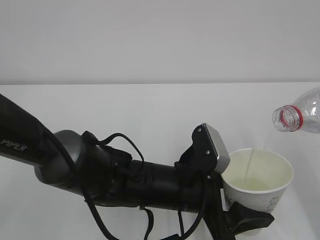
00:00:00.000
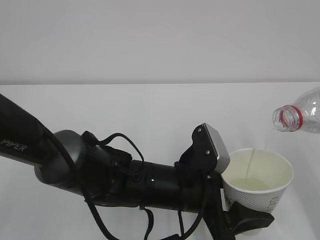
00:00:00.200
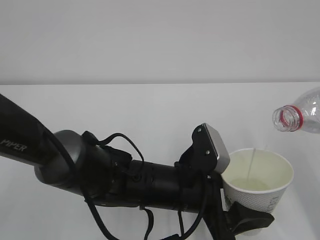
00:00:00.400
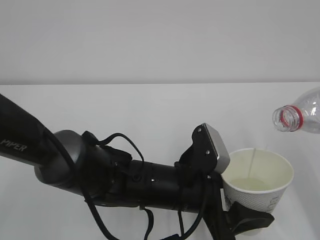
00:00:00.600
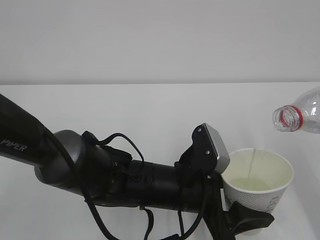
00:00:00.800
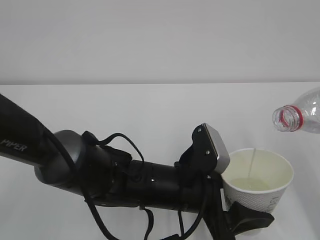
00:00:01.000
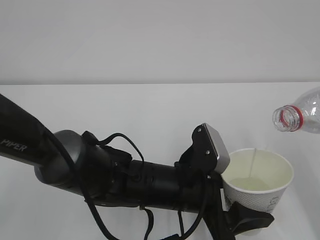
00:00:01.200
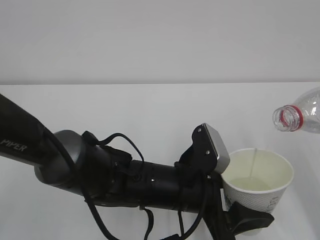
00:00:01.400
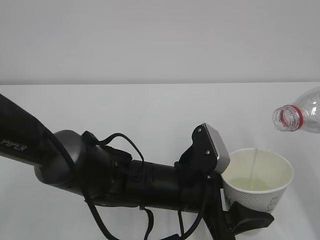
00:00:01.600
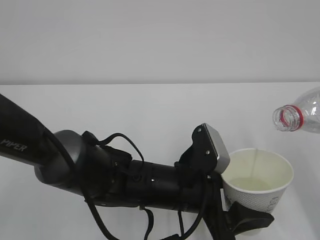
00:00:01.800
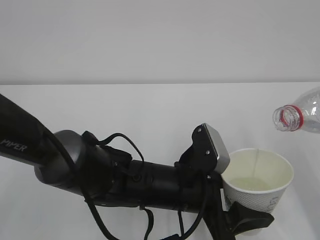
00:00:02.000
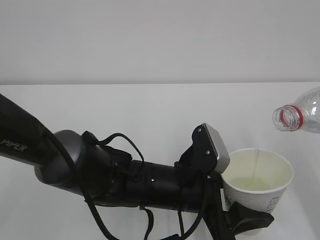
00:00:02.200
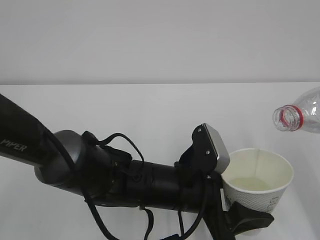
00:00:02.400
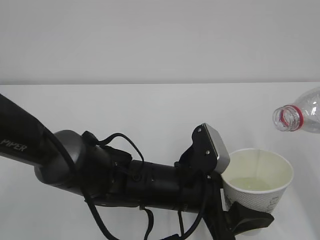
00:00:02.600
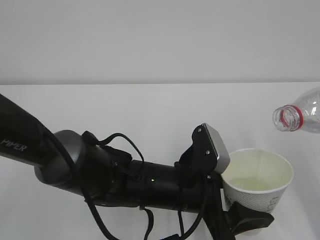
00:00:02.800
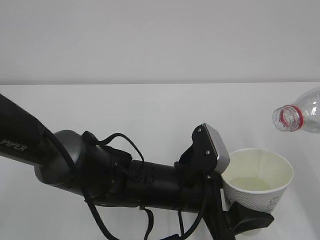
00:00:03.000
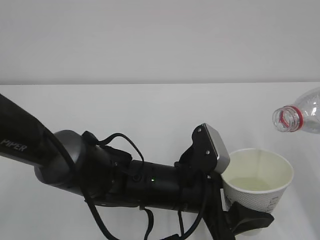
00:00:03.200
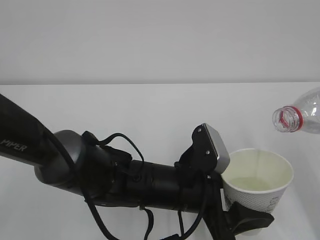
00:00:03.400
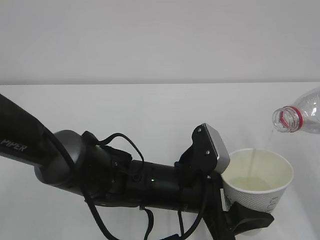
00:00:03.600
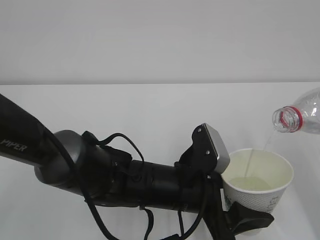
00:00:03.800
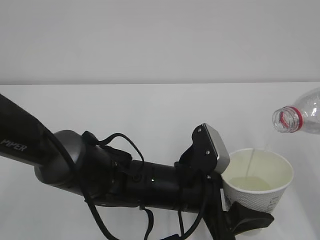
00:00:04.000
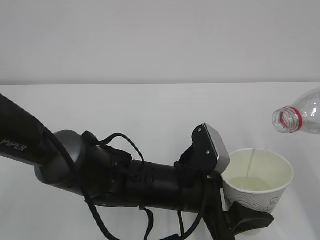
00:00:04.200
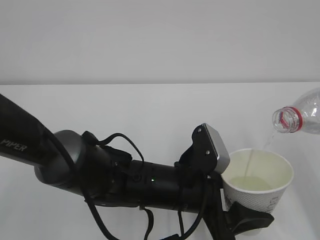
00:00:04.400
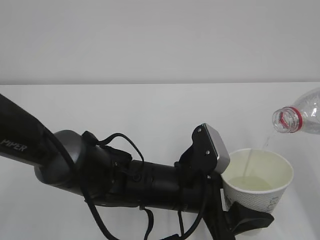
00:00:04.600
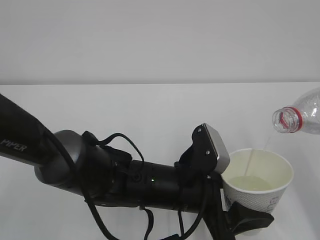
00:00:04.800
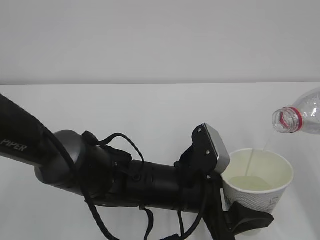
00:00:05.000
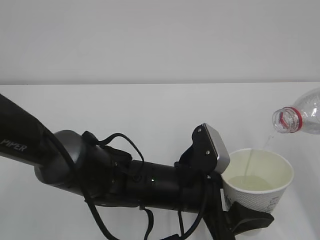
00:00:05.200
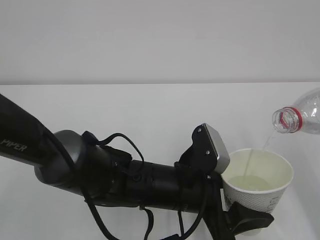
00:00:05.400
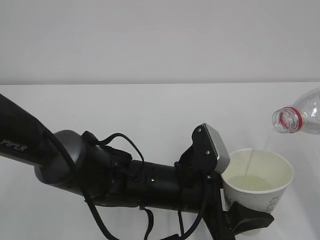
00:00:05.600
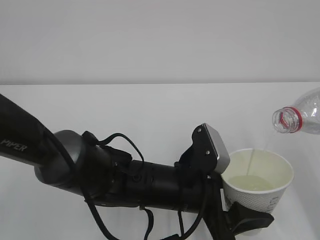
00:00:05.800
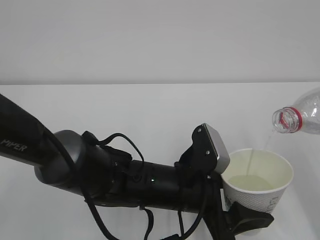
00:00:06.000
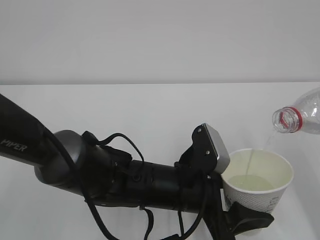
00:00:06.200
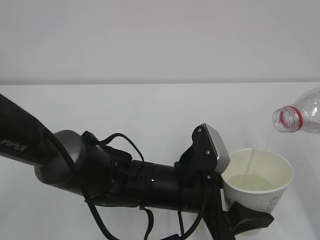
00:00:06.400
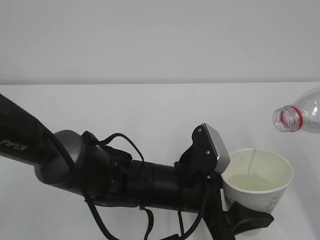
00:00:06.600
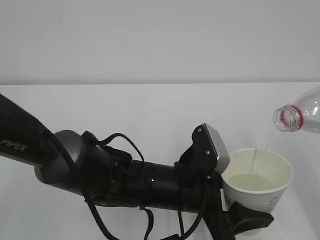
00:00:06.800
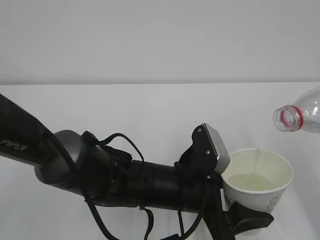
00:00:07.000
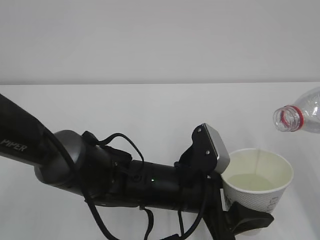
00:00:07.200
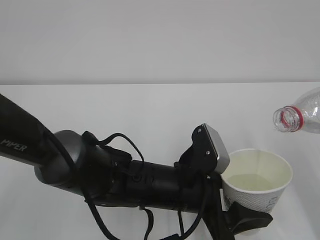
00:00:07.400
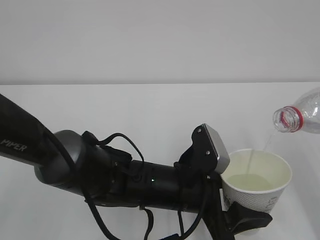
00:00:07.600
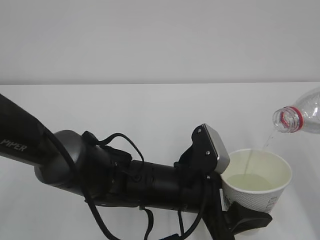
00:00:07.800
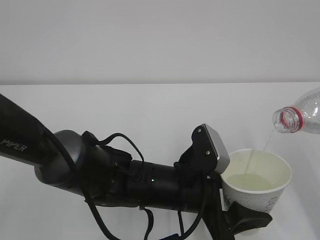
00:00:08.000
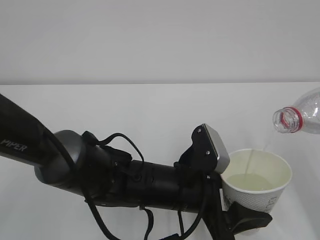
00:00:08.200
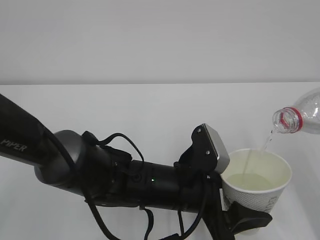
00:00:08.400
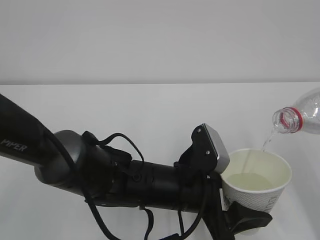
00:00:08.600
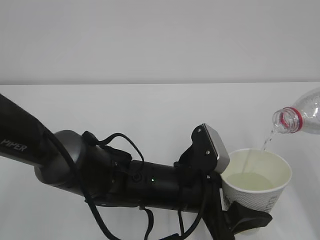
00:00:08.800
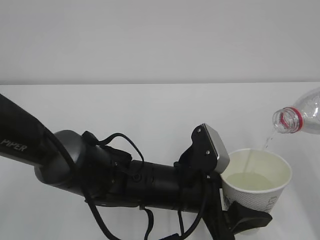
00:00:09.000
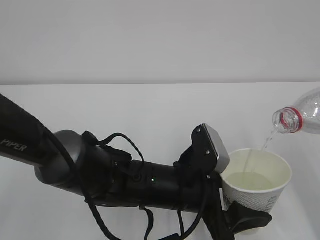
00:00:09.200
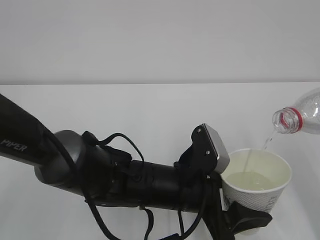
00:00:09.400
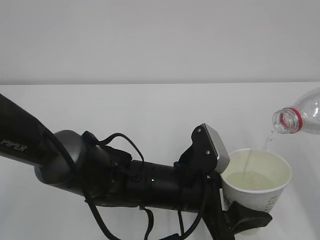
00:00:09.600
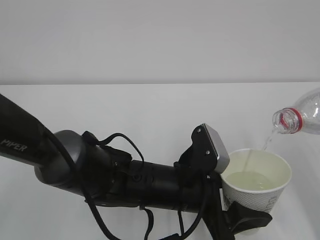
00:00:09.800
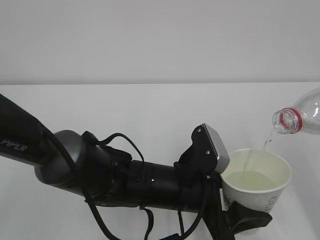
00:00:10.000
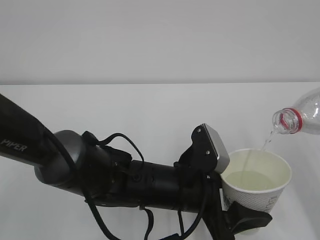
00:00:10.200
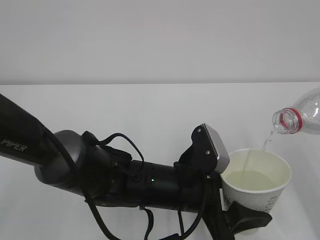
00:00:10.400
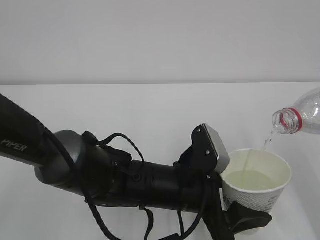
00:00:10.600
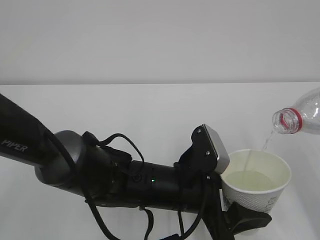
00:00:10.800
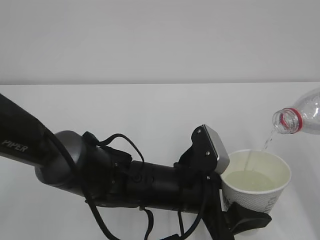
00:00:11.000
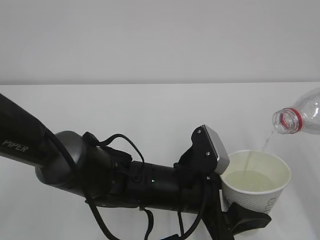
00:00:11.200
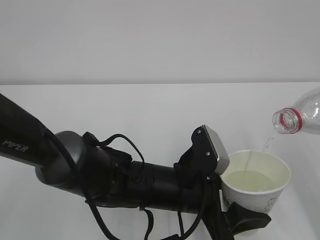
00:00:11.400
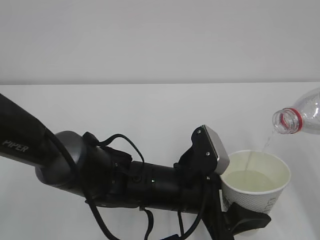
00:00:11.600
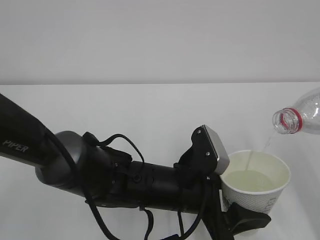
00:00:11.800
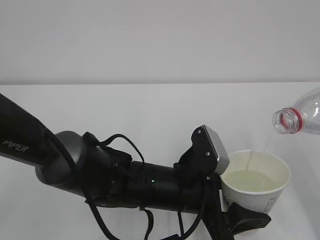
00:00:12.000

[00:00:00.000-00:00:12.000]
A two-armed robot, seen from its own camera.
00:00:00.000 to 00:00:12.000: Both grippers stay about where they are.

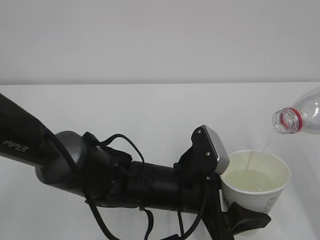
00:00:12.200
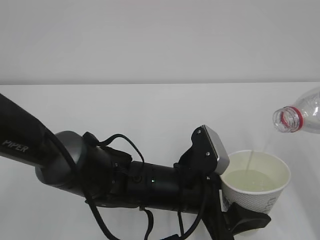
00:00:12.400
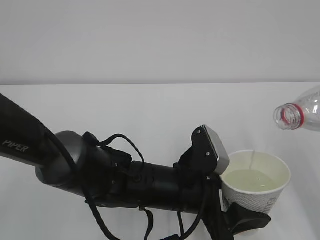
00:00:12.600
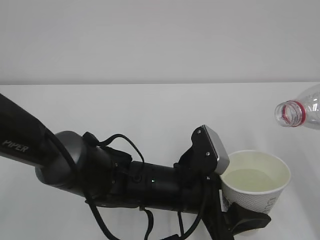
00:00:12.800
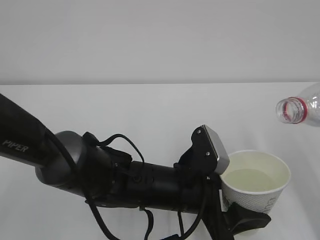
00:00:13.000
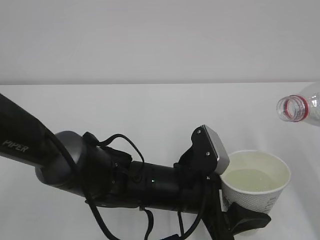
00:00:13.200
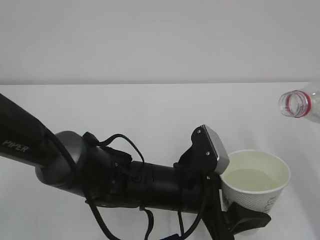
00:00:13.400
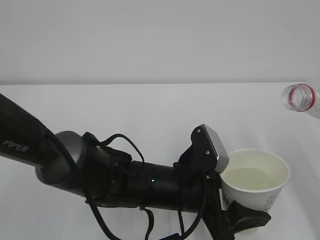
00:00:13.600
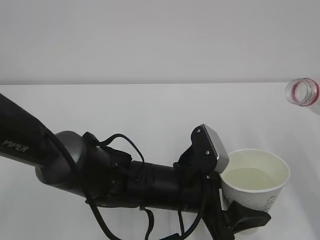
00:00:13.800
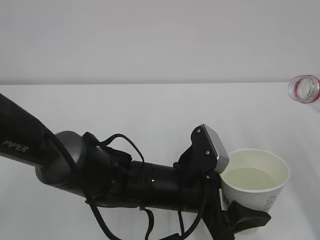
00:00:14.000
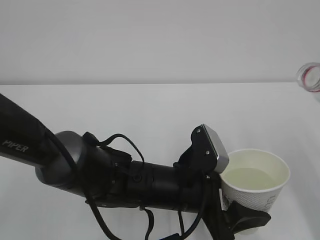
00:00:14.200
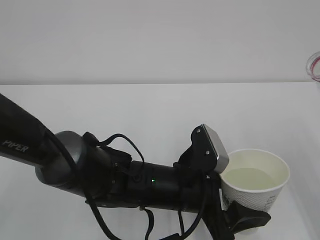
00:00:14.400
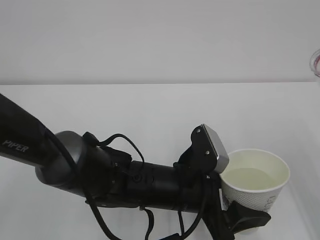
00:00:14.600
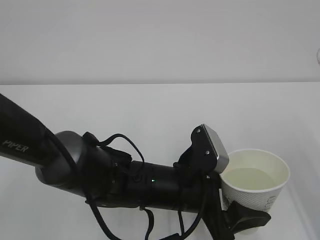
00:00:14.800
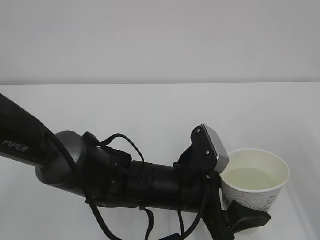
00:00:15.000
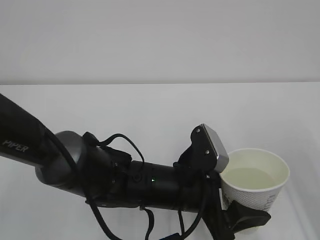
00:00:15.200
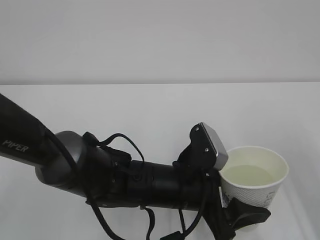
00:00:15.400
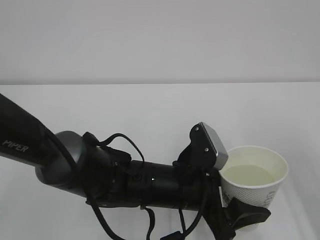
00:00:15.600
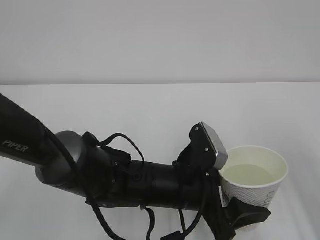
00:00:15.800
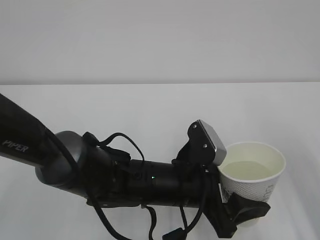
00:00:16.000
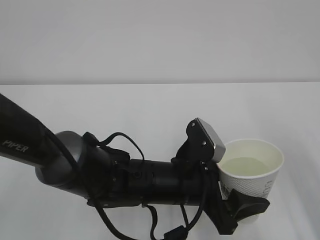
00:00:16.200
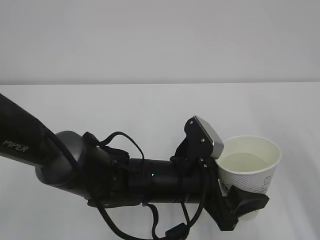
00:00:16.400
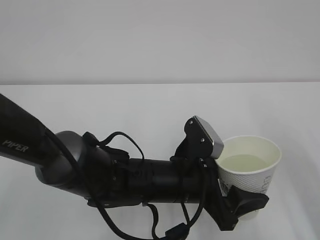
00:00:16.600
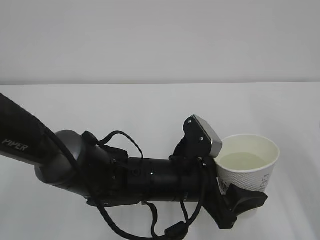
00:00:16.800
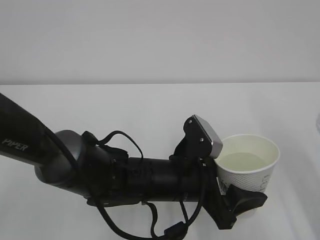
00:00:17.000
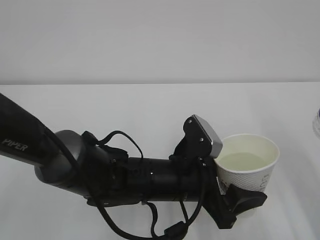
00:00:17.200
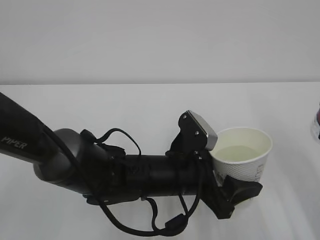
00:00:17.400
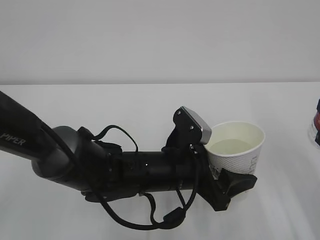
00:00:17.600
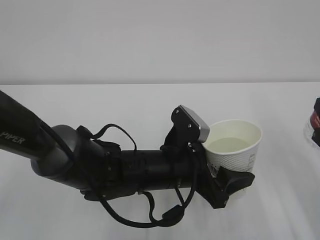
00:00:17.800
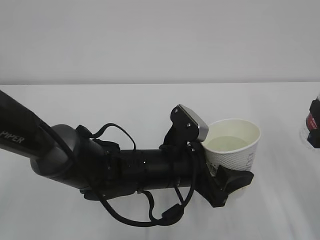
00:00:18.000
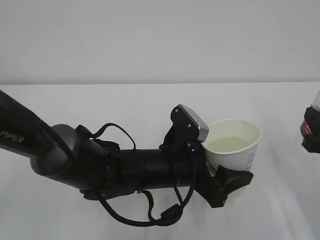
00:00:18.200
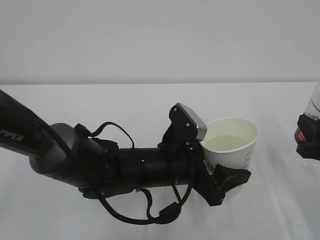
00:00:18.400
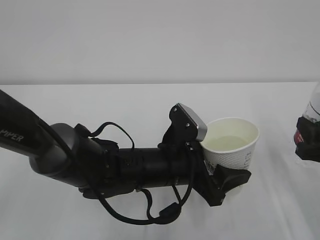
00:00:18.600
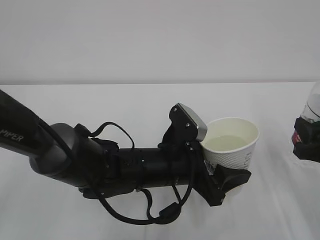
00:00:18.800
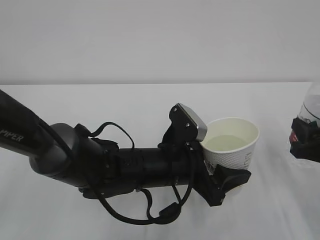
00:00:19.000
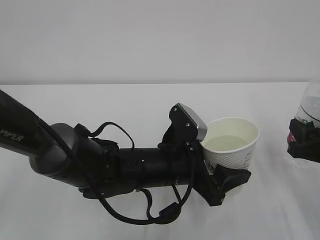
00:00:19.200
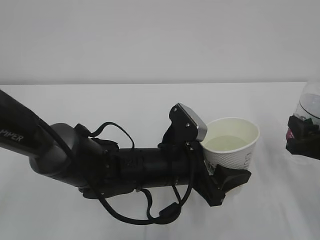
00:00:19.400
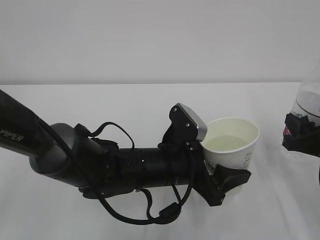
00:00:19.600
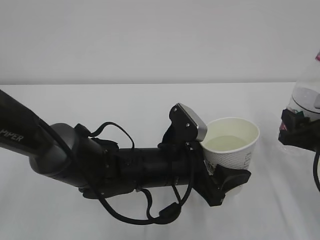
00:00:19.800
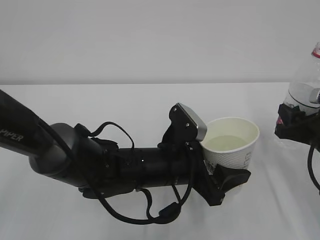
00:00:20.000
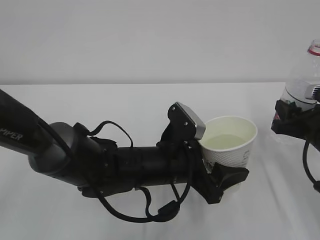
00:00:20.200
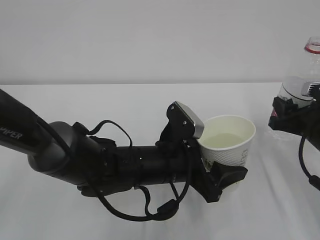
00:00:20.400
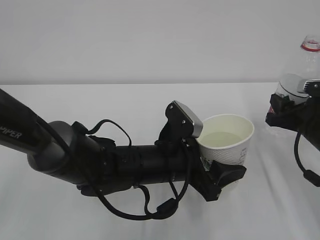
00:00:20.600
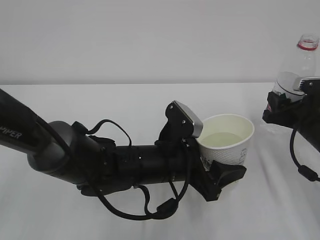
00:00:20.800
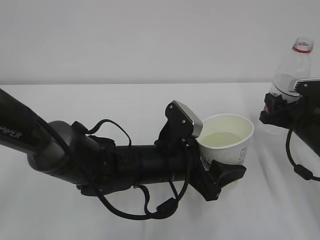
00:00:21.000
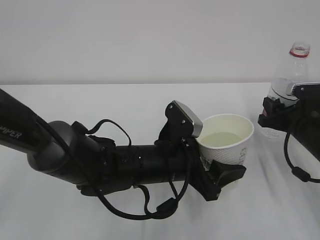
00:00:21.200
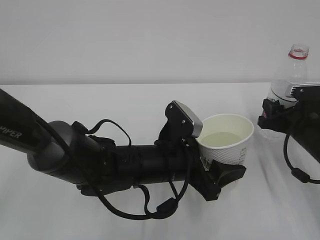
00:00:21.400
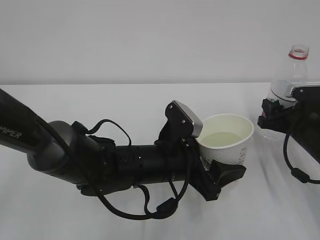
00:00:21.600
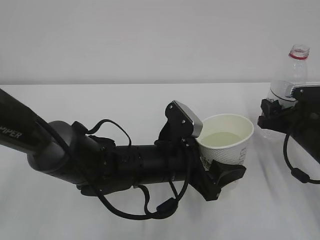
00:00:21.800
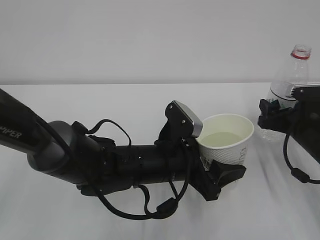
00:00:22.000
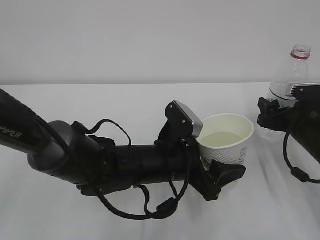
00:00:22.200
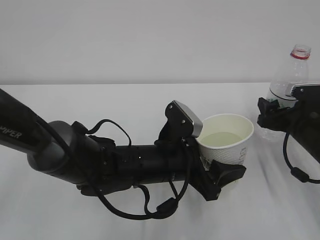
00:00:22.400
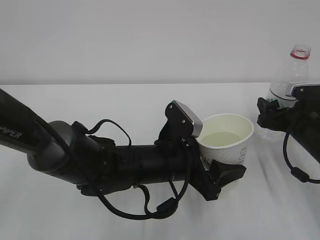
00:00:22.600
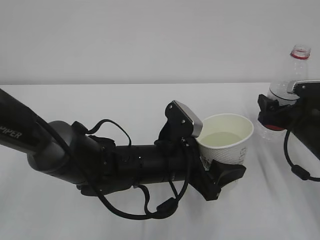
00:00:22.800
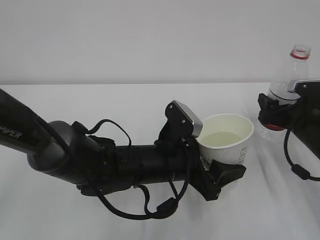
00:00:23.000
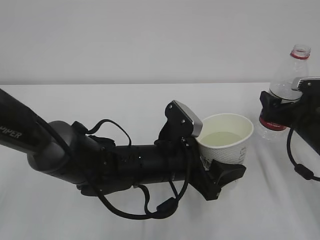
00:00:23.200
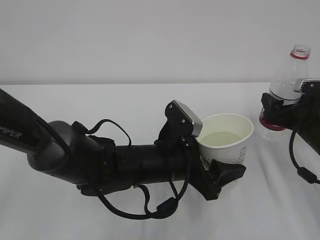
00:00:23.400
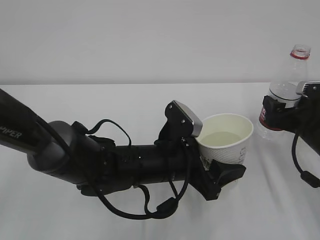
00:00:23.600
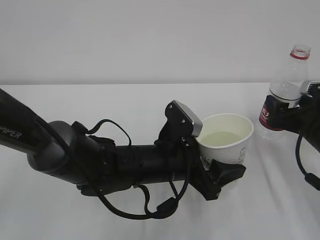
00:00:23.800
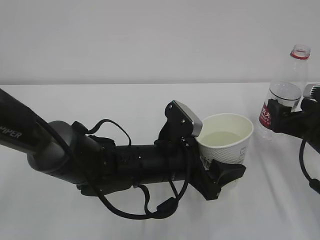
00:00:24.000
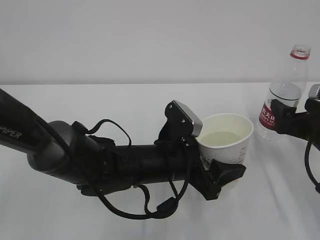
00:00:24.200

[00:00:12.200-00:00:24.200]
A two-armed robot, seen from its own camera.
00:00:12.200 to 00:00:13.800: The grippers make only small movements.
00:00:16.600 to 00:00:18.200: The right gripper shifts about 5 cm downward.
00:00:18.200 to 00:00:19.800: The right gripper travels forward by roughly 5 cm.
00:00:19.800 to 00:00:21.200: The right gripper heads forward, covering about 5 cm.
00:00:21.200 to 00:00:22.600: The right gripper opens.
00:00:22.600 to 00:00:24.200: The right gripper moves backward, about 5 cm.
